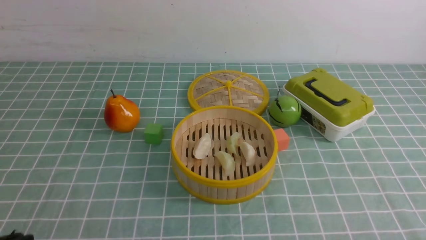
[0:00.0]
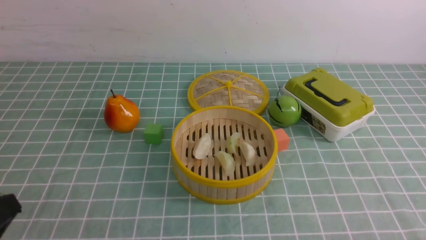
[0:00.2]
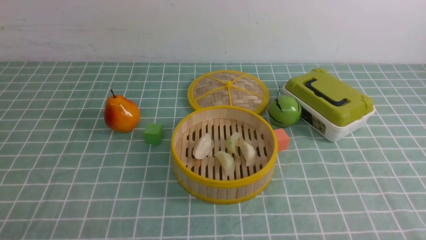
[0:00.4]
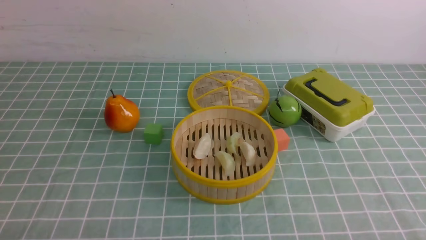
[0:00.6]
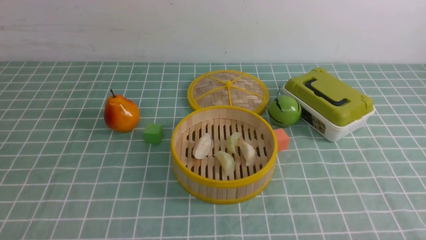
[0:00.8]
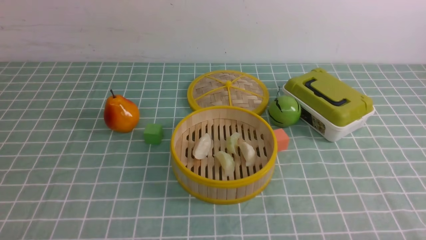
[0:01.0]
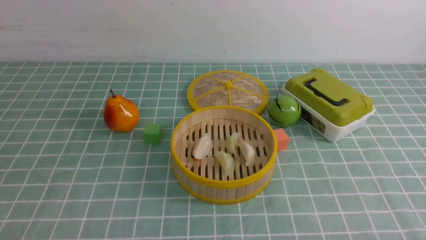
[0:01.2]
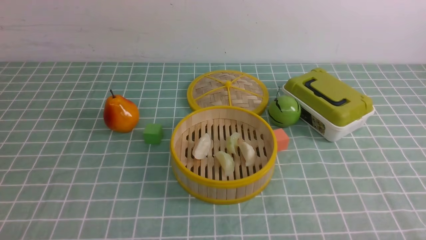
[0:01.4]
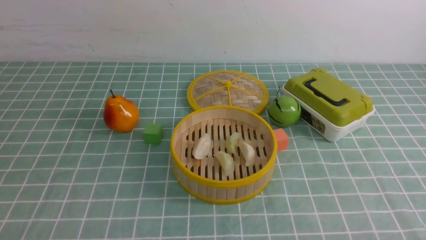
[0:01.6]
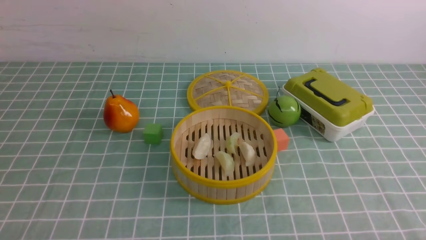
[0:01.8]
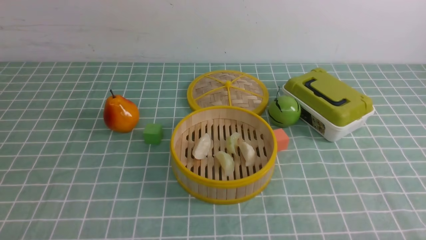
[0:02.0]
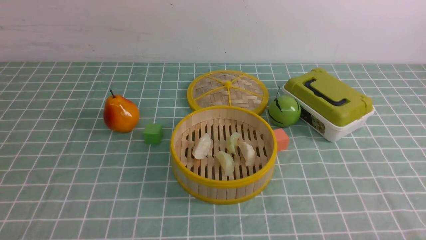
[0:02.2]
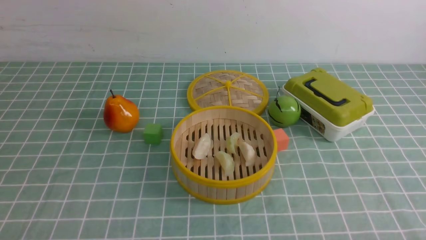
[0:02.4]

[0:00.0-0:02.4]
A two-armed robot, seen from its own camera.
Task of the whole recording: put the dumplings into the steamer on the table with the blue tablecloth.
0:01.2 to 0:02.4: Both grippers stay about where they are.
